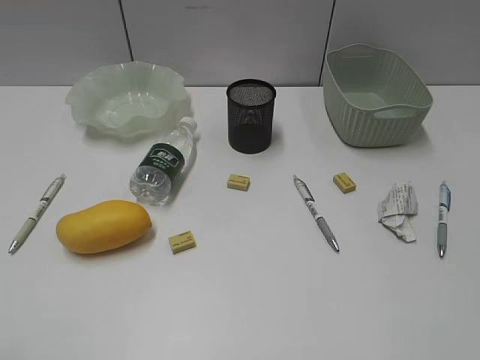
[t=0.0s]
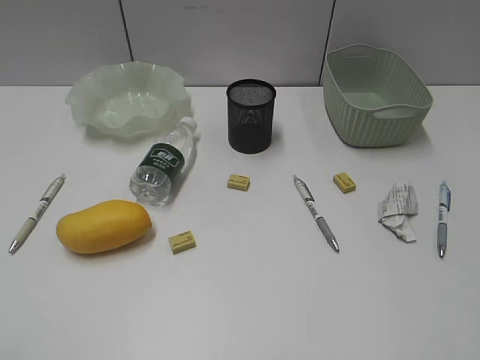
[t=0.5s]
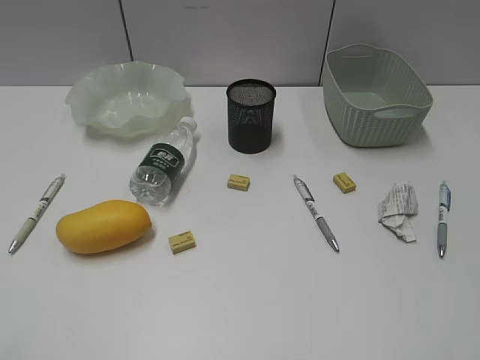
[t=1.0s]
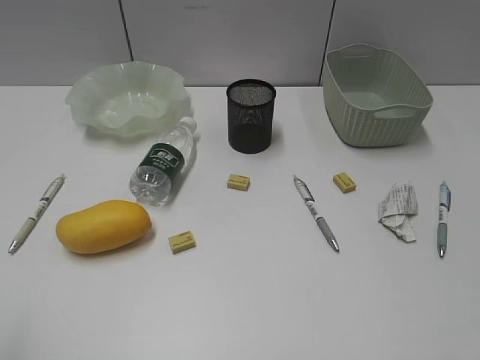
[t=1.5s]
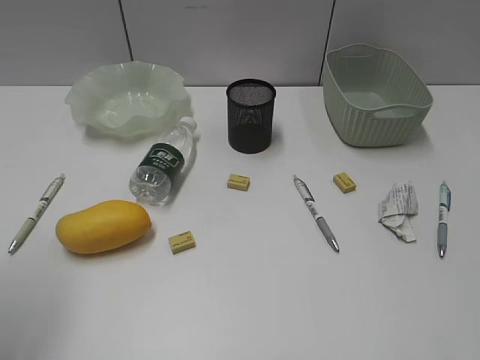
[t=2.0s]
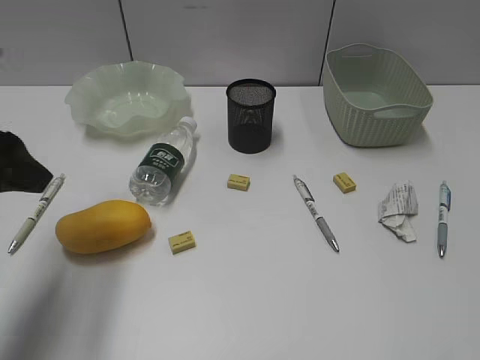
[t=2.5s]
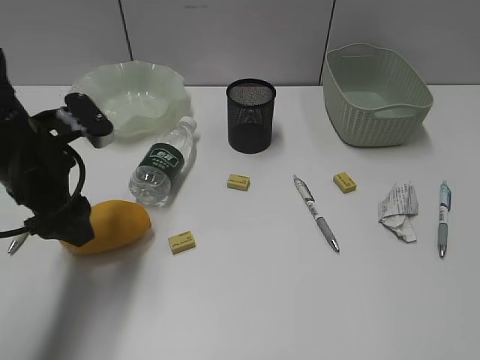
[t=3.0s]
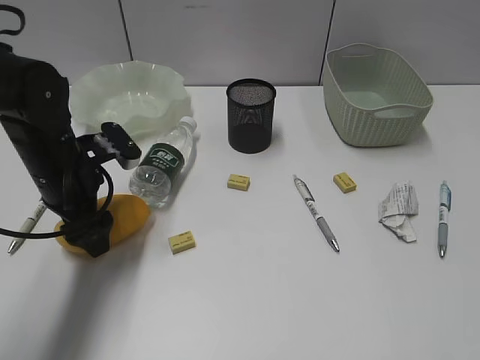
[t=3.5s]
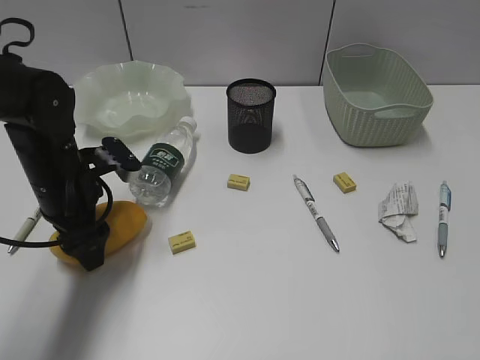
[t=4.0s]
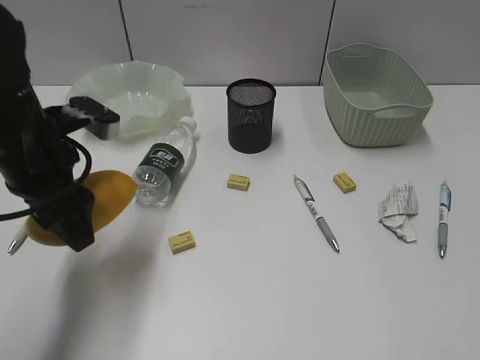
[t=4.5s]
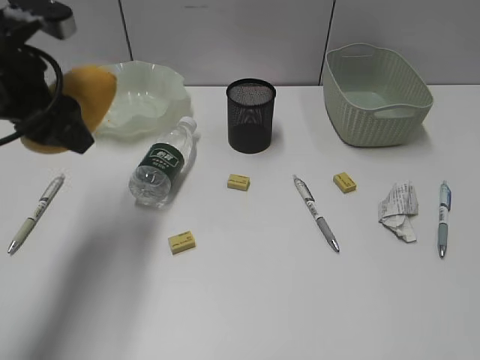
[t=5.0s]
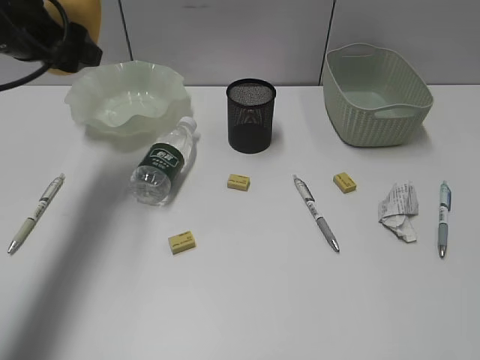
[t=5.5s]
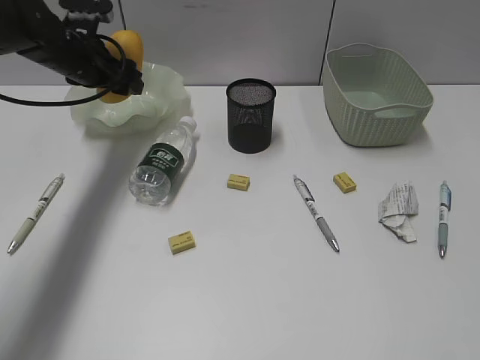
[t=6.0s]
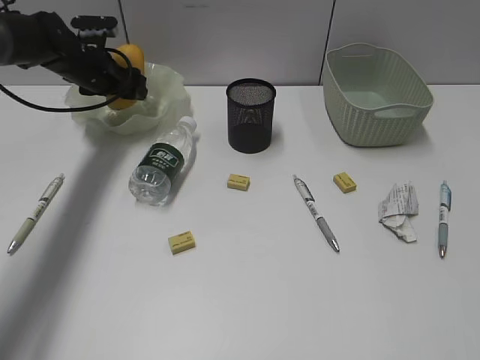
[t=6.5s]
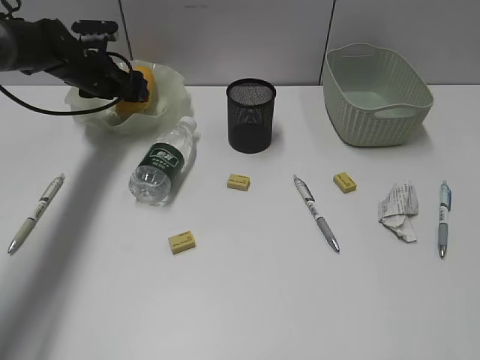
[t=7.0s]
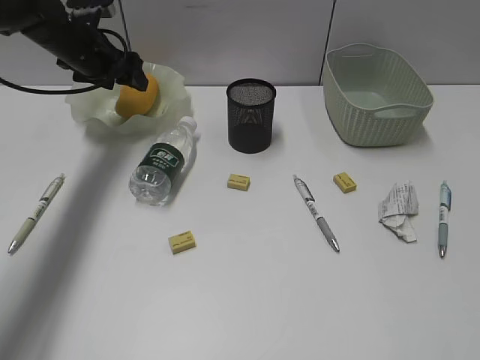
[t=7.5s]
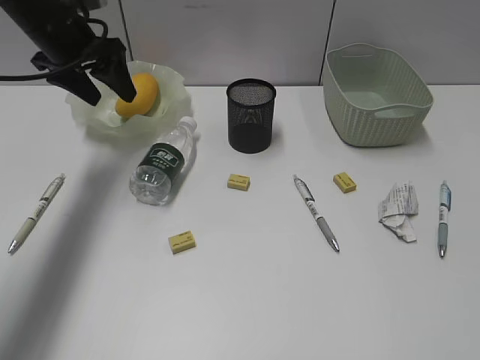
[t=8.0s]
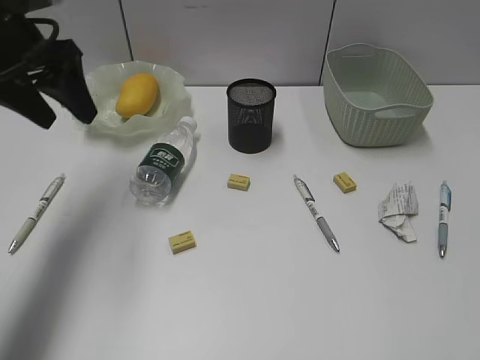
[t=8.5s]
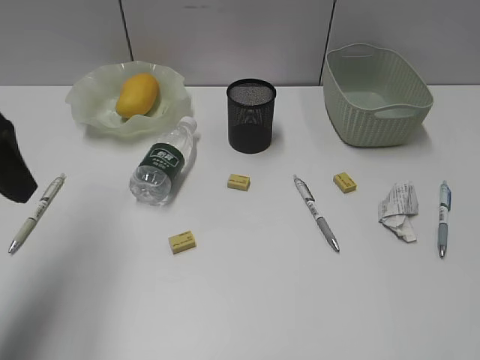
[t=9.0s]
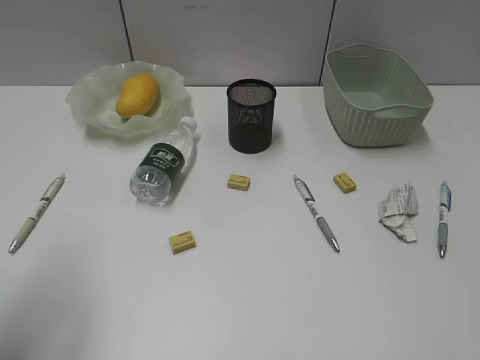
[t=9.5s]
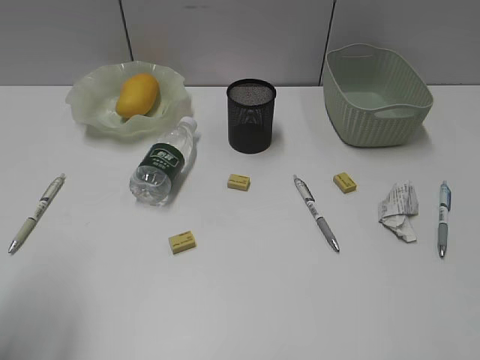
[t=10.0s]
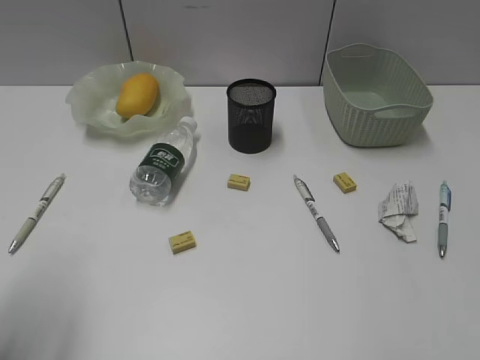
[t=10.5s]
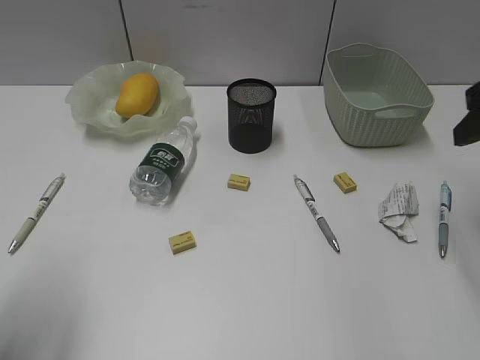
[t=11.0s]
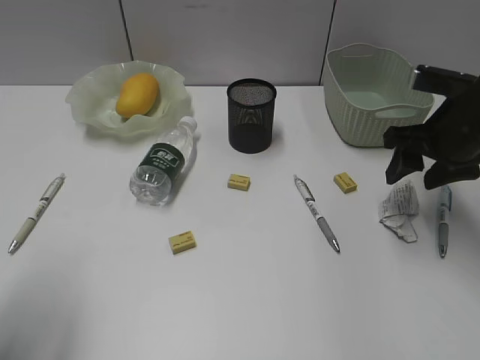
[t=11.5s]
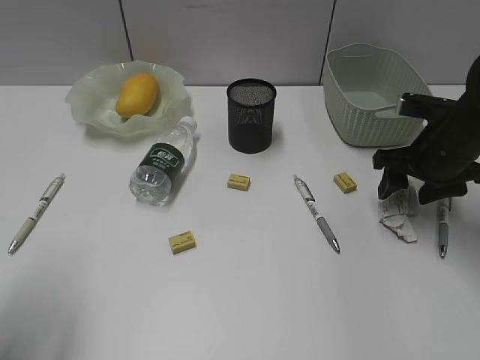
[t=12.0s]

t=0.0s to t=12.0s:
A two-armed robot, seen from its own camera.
Step, t=2.5s to t=3.5s: Grasp the mango with left gripper.
Step, t=4.0s to t=7.5s: Place the mango in the plate with left gripper.
t=2.0s to t=4.0s: The left gripper goes roughly 25 cm forward, downward and to the right.
t=4.0s to t=6.0s: The left gripper travels forward and upward by approximately 15 cm.
t=8.0s to t=10.0s: The left gripper heads backward, covering about 30 cm.
t=10.0s to t=12.0s: The right gripper travels forward and downward by about 35 cm.

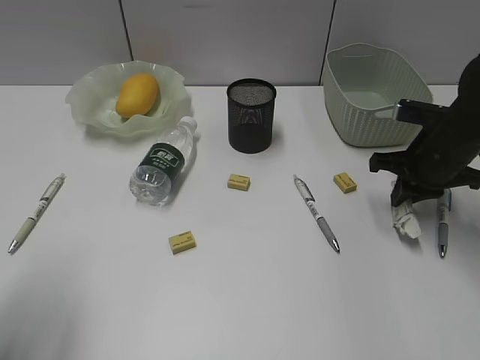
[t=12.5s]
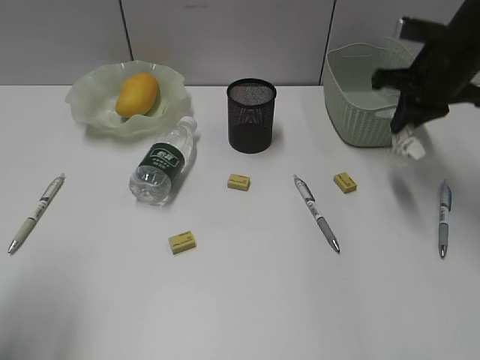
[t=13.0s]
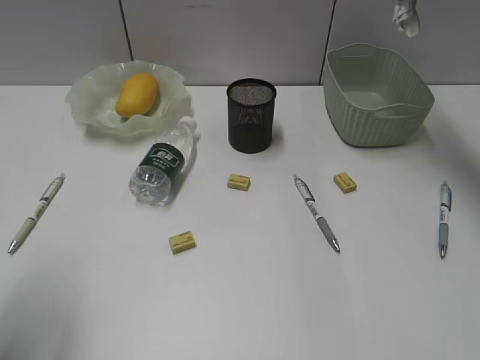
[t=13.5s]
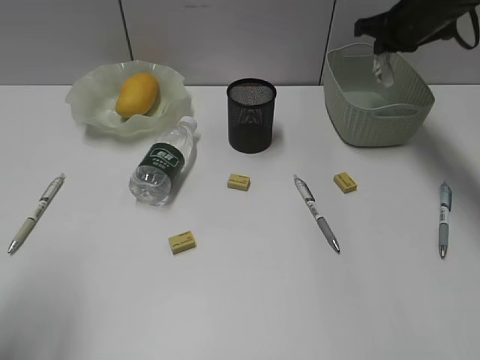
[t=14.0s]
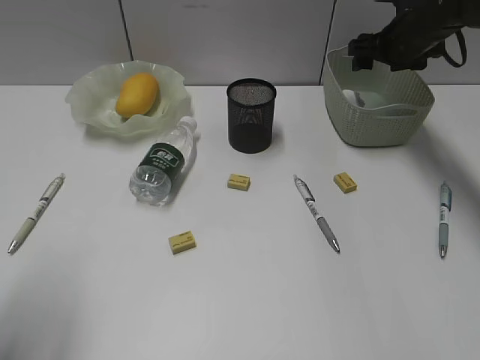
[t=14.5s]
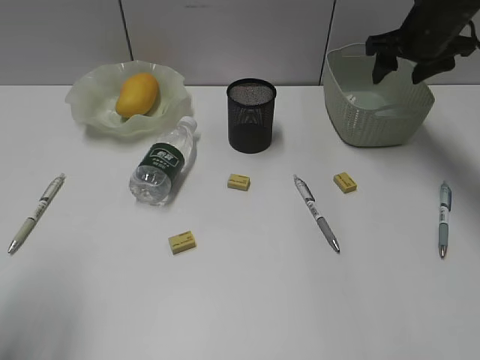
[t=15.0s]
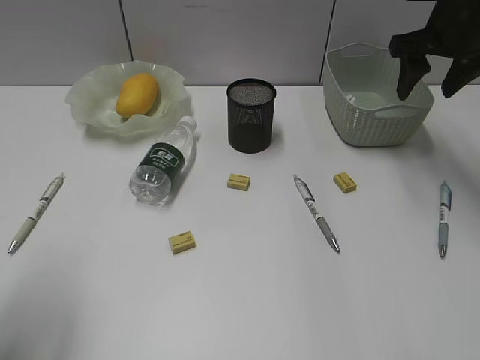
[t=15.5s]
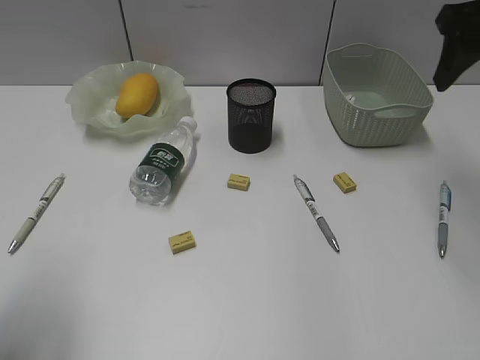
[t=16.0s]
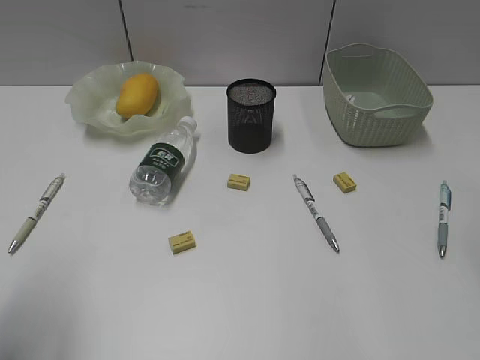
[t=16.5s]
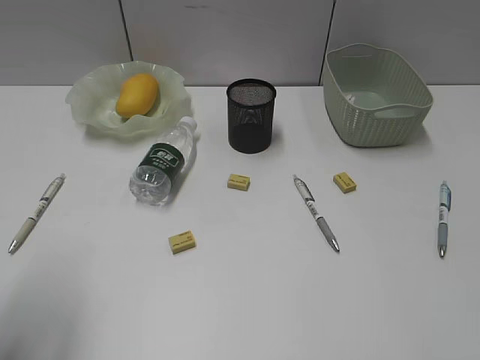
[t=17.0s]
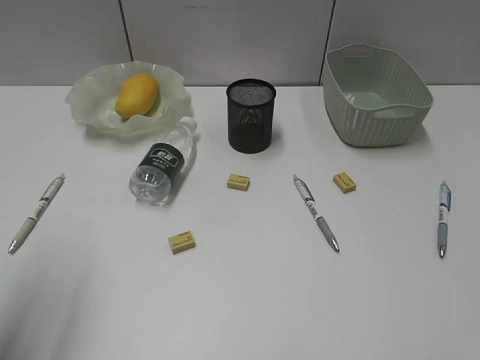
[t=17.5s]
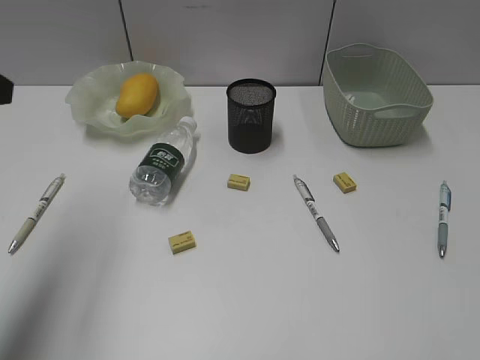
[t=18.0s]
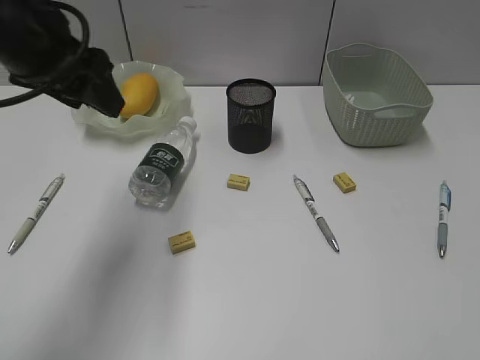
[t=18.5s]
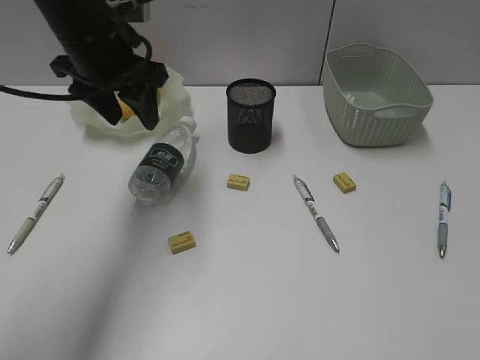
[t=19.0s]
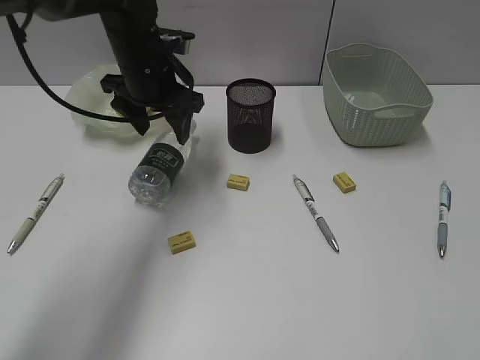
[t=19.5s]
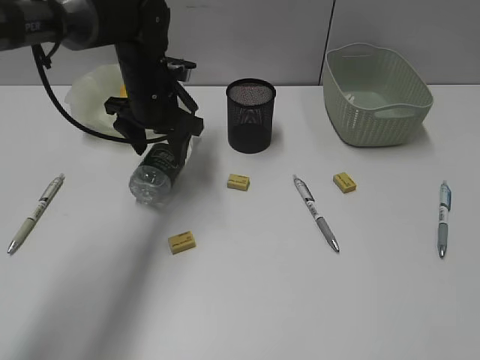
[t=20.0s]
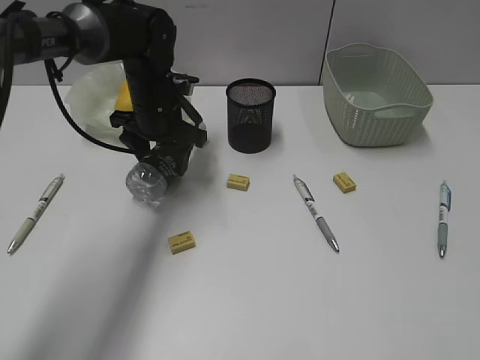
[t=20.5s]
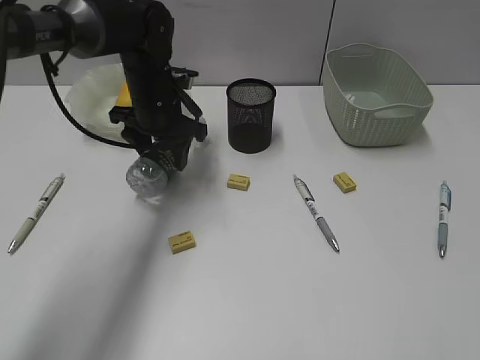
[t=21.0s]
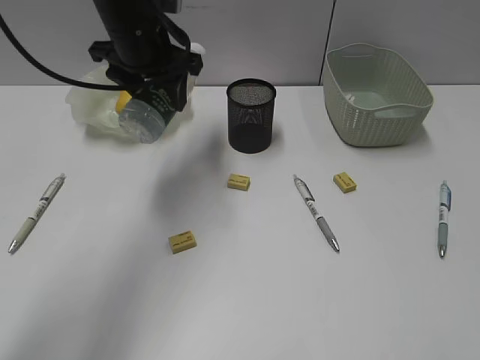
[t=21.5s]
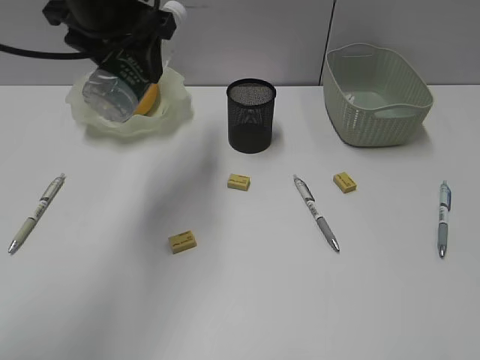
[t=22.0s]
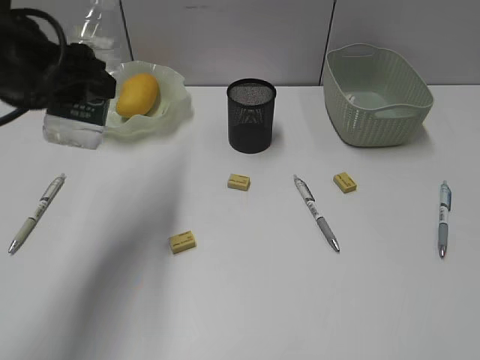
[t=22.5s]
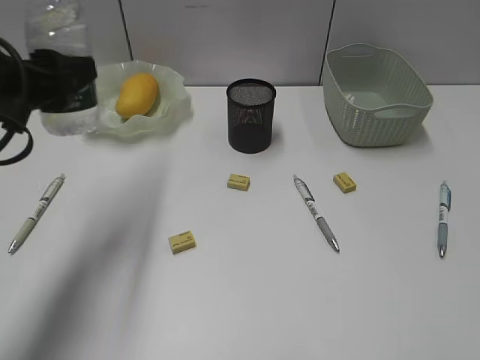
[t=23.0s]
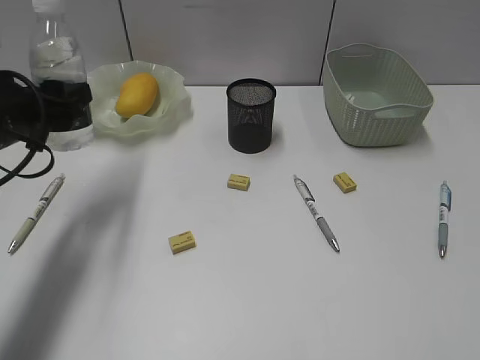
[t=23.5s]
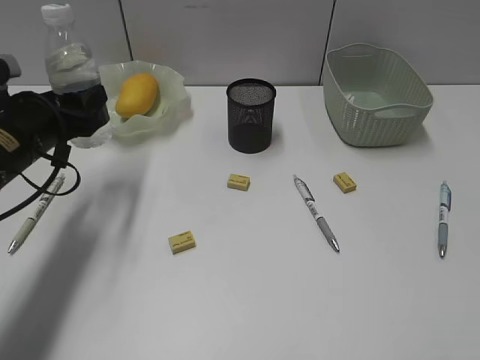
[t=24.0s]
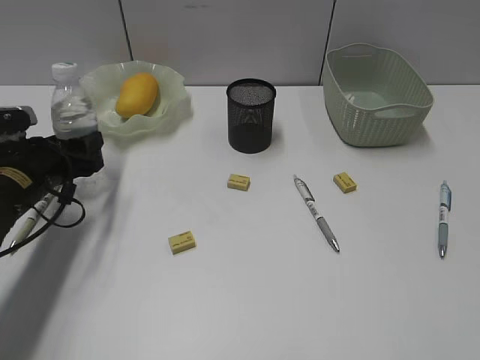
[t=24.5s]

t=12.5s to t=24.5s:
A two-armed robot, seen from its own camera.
Step, t=13.0s to t=14.5s: Place the waste paper in the basket with right gripper.
Step, t=15.0s to t=20.5s: Grasp the bottle with left gripper.
t=12.5s to t=14.5s: The right gripper shifts roughly 15 cm forward, reaches roughly 20 cm upward, then returns, and opens up.
t=14.5s to t=16.5s: The right gripper is displaced backward and upward by some 35 cm.
t=16.5s to t=18.5s: The right gripper heads backward and downward, covering roughly 15 cm. Meanwhile the left gripper goes roughly 20 cm forward and to the right.
t=18.5s to t=20.5s: The left gripper heads downward, forward and to the right, covering some 25 cm.
t=20.5s to t=22.5s: The left gripper goes about 25 cm backward, upward and to the left.
t=22.5s to t=24.5s: The left gripper is displaced downward by about 20 cm.

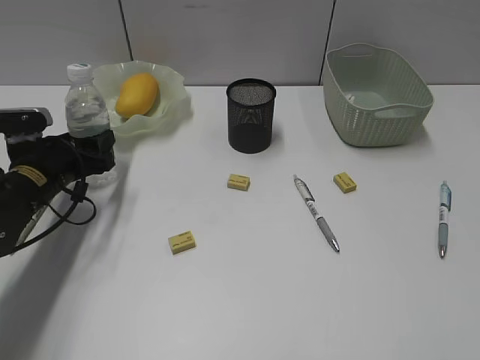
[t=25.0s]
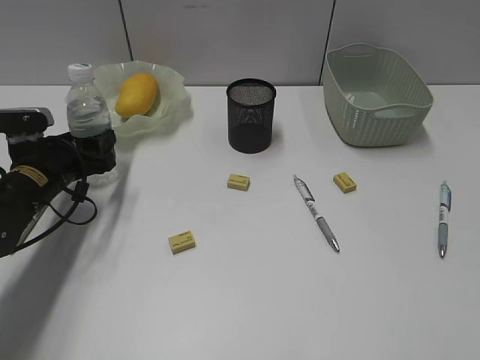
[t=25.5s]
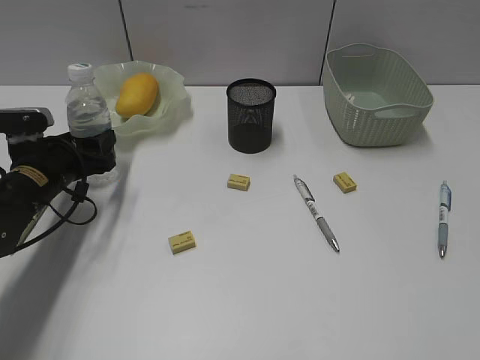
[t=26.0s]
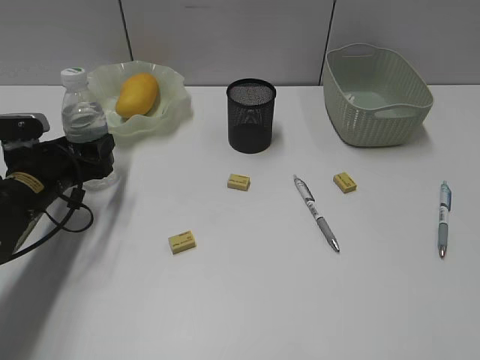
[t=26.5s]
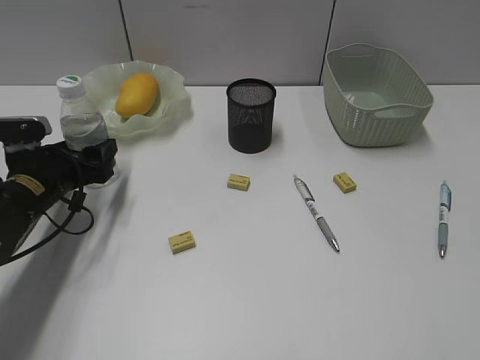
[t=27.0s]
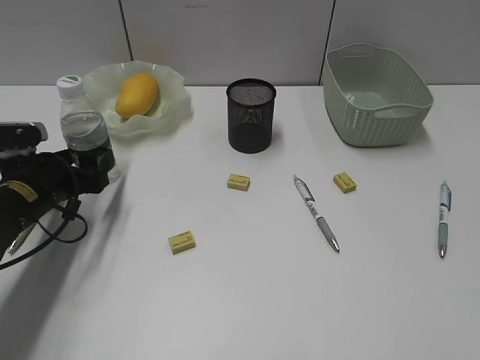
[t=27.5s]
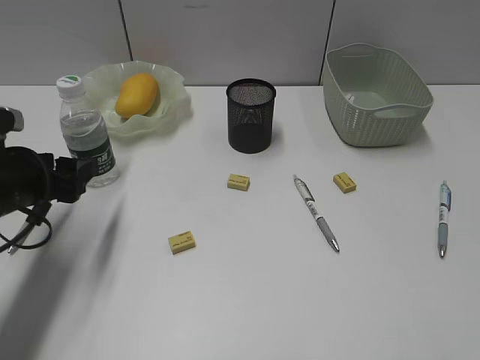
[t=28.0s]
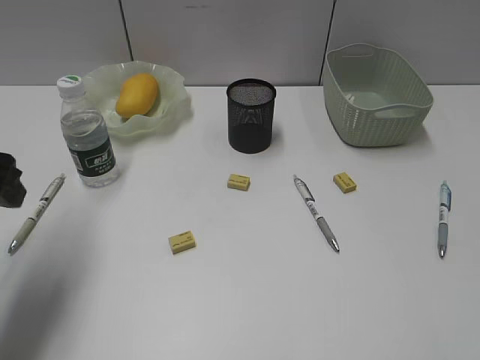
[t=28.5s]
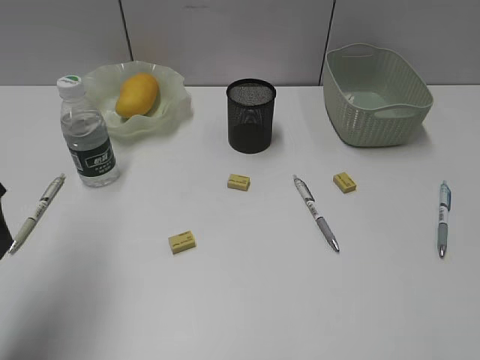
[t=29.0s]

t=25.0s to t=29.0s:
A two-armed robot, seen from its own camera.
Step, t=25.0s to t=27.5s: Stand the bottle with left gripper.
t=25.0s to t=27.0s: Both grippers stay put.
t=27.0s to t=29.0s: The left gripper moves upward and backward, some 25 cm.
